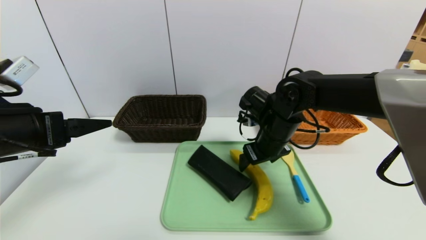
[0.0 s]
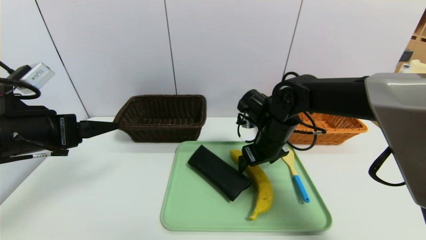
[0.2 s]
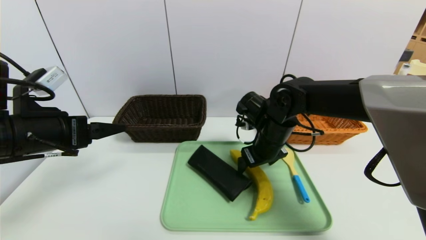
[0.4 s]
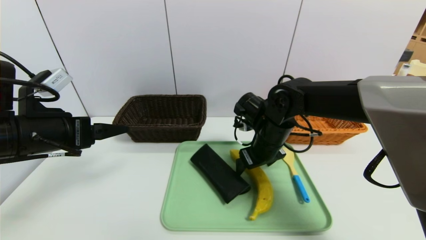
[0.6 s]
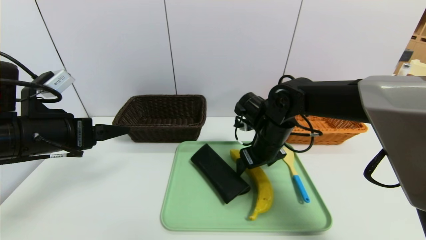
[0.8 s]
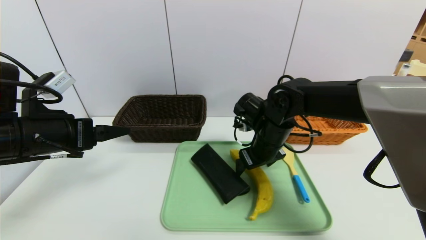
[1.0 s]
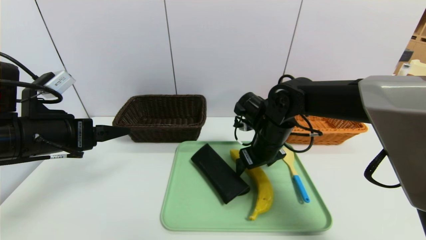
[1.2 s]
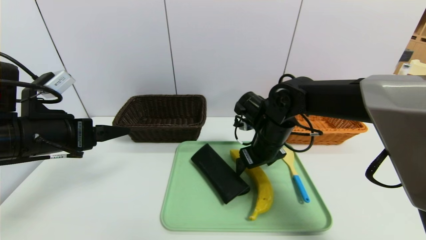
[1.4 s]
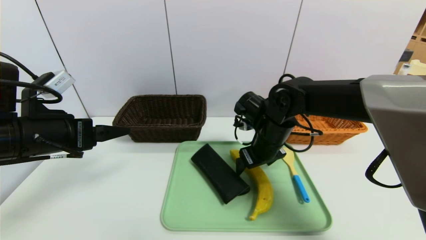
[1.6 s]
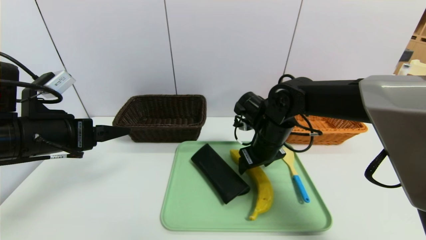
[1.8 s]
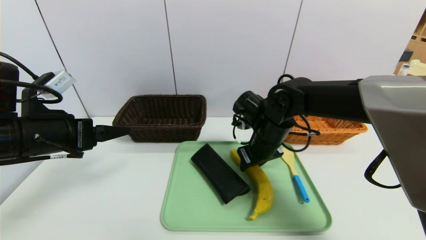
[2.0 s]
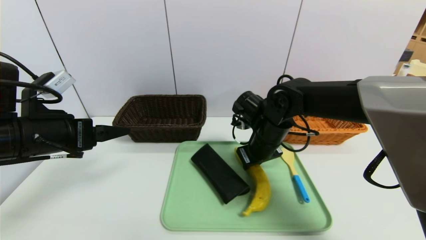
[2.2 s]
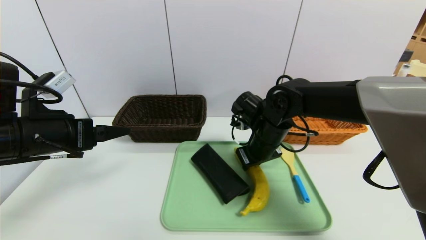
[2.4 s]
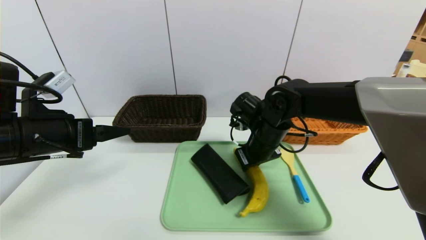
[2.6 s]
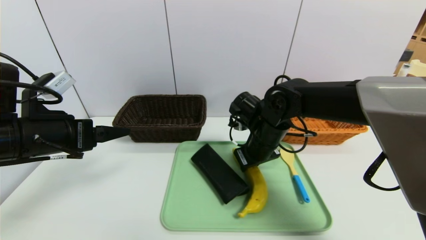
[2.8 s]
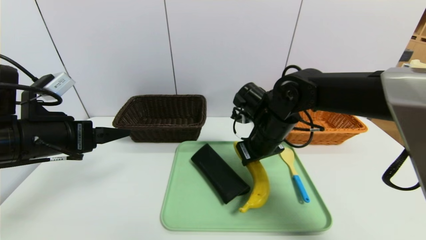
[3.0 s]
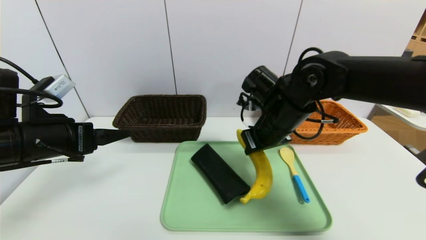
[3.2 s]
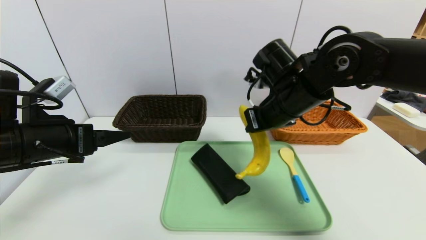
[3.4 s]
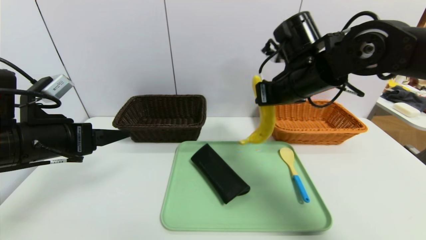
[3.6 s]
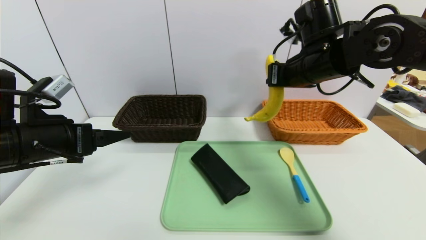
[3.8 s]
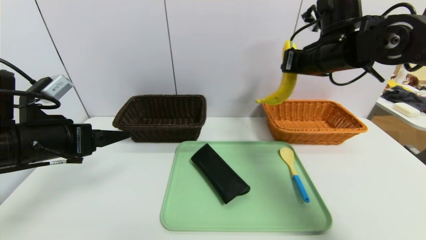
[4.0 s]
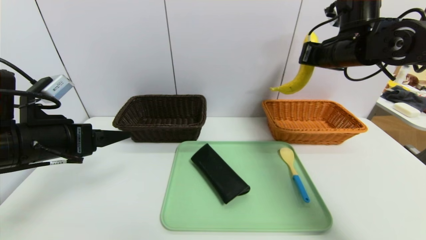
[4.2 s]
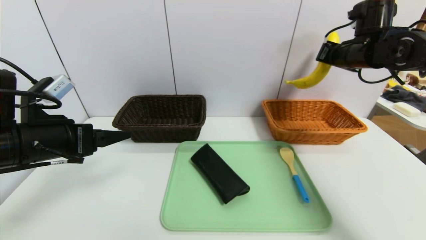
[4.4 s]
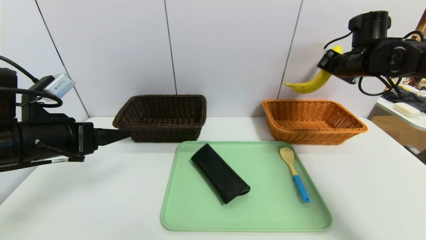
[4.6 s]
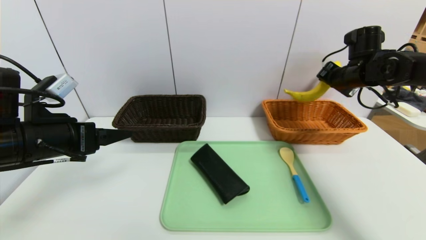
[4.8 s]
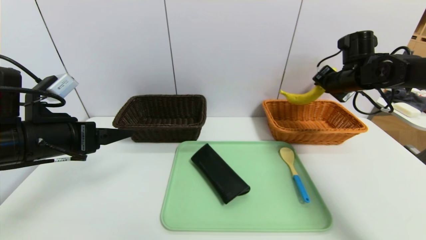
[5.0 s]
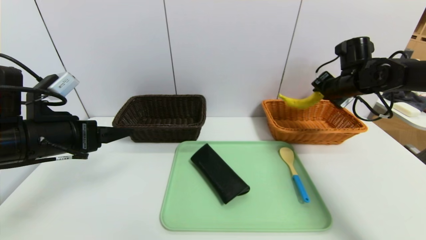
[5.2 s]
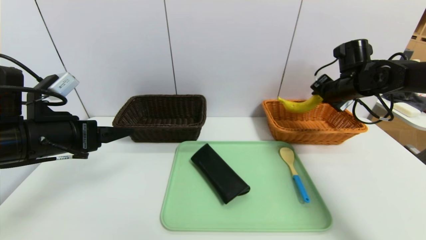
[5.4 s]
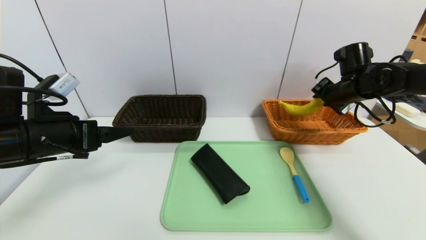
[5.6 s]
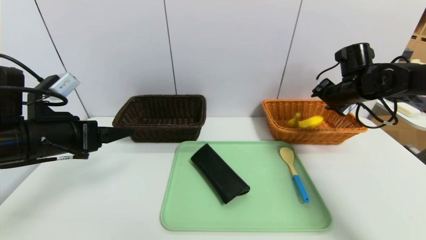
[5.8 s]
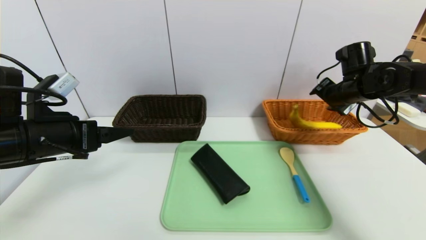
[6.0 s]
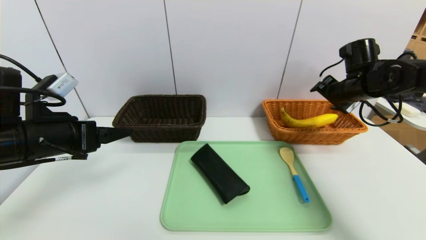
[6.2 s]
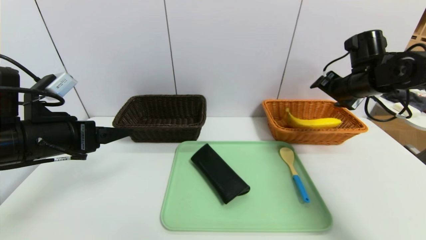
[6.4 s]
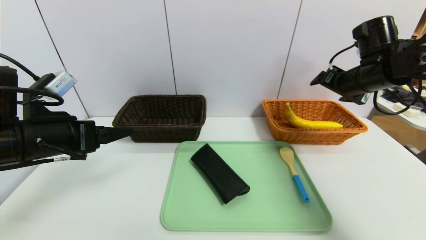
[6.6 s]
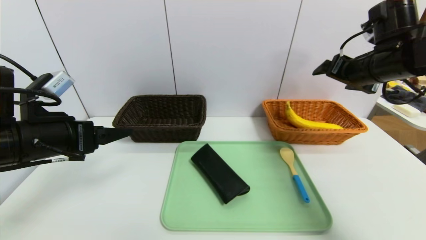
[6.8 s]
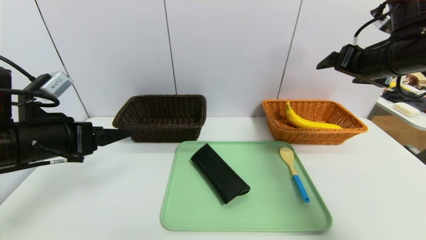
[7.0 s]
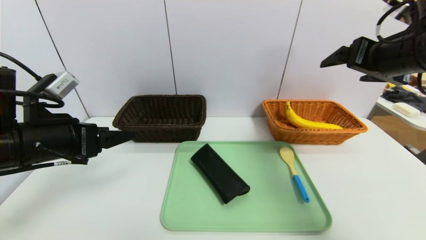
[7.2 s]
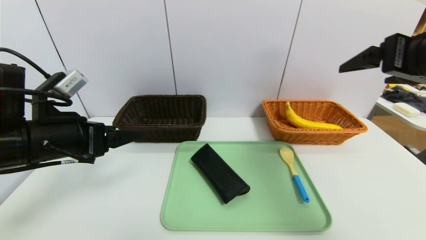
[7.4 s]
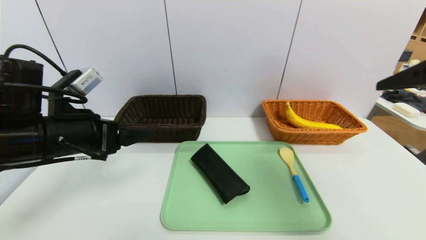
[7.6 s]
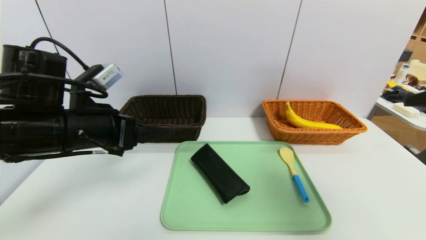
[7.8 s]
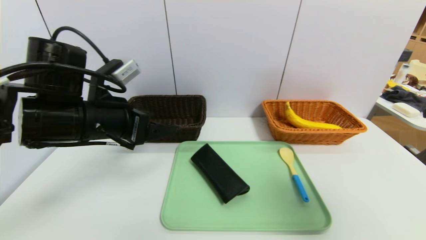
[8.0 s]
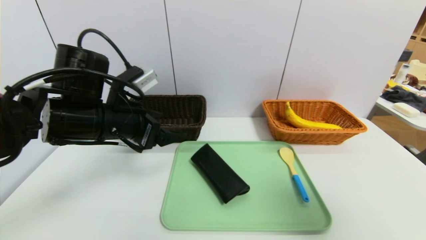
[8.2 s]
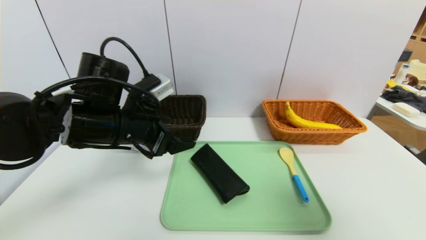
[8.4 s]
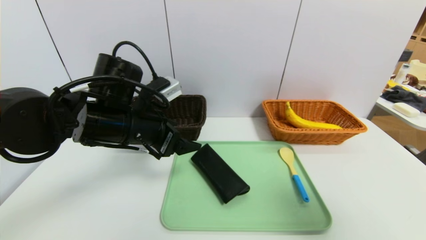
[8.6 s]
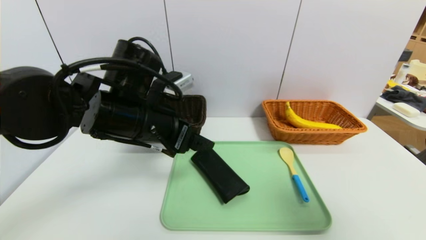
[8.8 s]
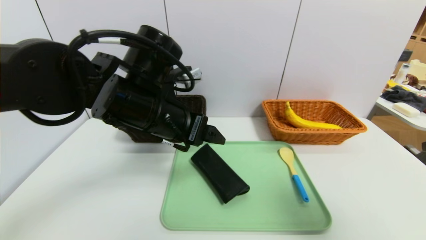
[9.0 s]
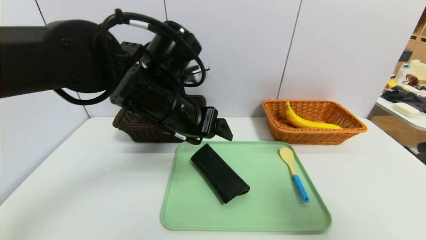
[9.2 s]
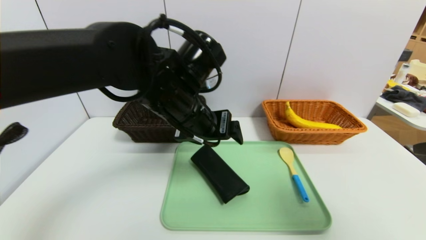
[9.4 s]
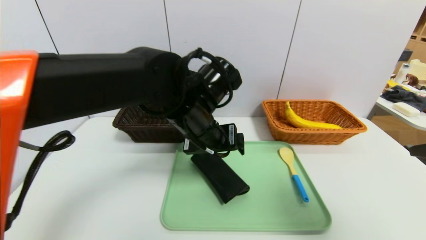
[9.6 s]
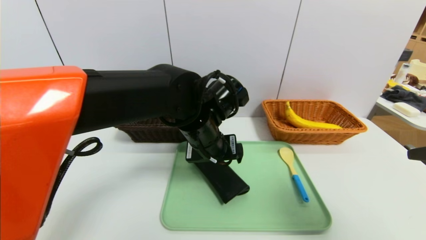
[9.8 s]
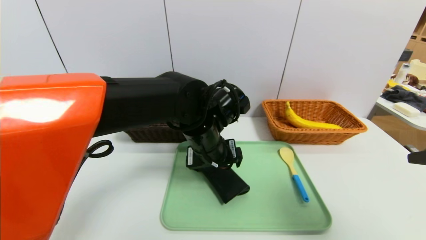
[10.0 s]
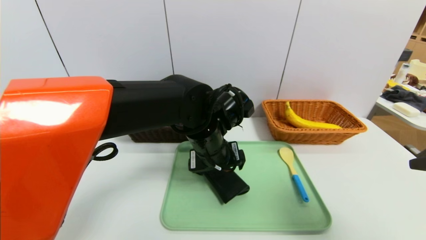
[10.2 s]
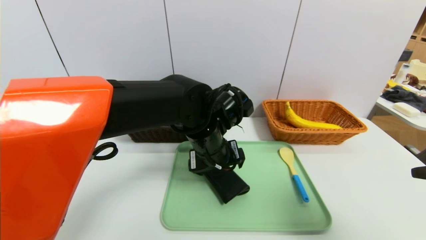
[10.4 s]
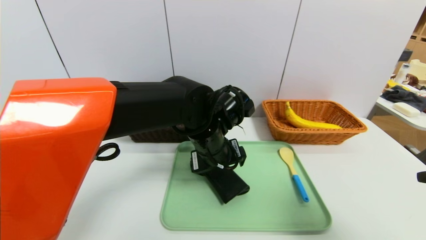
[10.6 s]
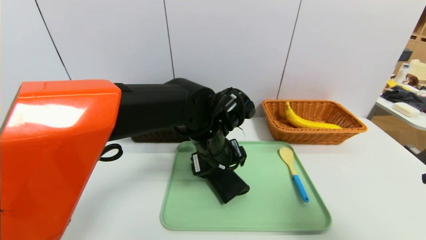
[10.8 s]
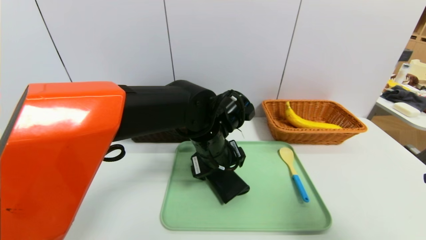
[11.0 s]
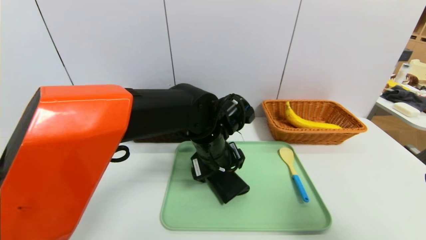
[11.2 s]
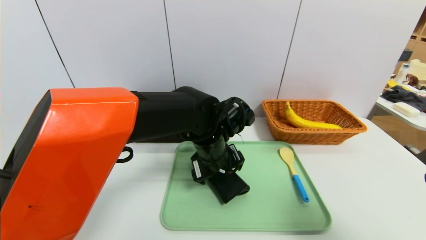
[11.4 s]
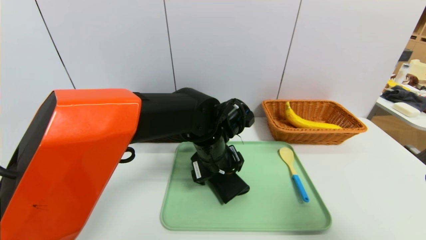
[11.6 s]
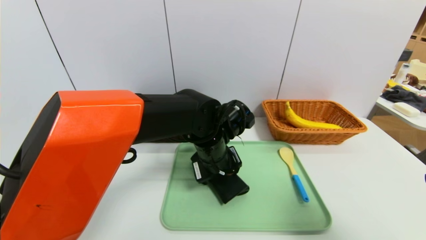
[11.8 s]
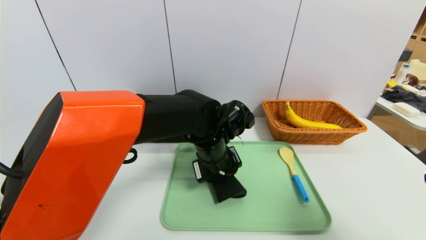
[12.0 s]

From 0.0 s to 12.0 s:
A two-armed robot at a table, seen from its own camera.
Task of the whole recording: place the food in the right basket with the right gripper, and place the non food items in the left basket with the left gripper.
Step, from 0.0 s to 6.2 s: Grasp the banana and put it in the right basket.
From 0.0 s to 1.6 s: The grippers move only a little.
From 1.6 s to 3.0 s: The right gripper closes its fingers.
From 3.0 s to 4.4 s: The right gripper goes roughly 25 cm to the right, upward and forward.
From 4.4 s to 6.0 s: The right gripper heads downward, covering about 10 cm, and opens.
From 6.0 s to 7.6 s: The right gripper is displaced backward and upward by about 30 cm, and opens its fingers.
From 7.6 s to 9.0 s: The right gripper travels backward by about 5 cm; the left gripper shifts about 15 cm to the right.
From 9.0 s to 10.4 s: The left gripper travels to the right and downward by some 10 cm.
From 10.4 s to 12.0 s: The left gripper closes up.

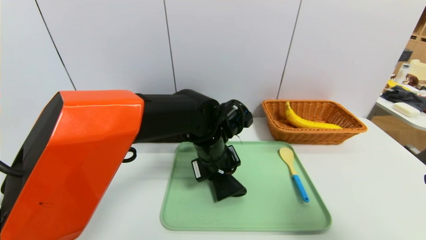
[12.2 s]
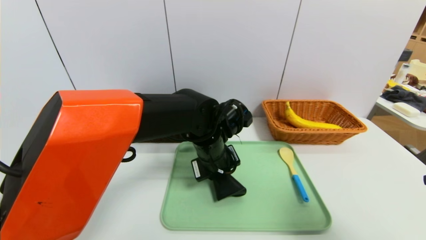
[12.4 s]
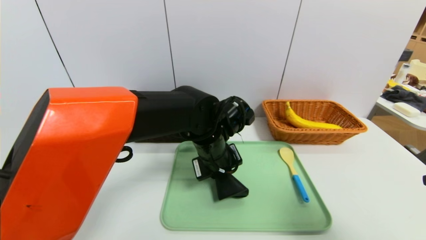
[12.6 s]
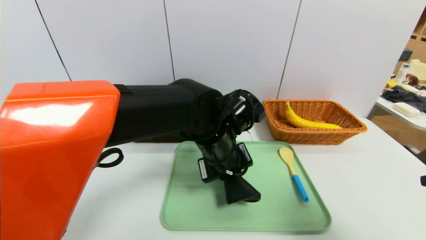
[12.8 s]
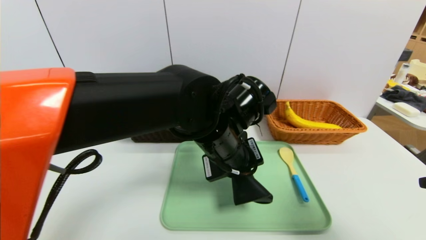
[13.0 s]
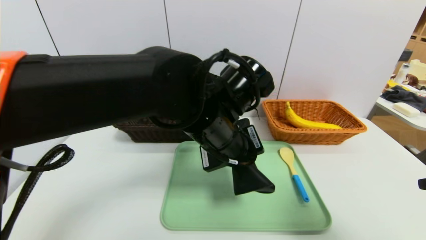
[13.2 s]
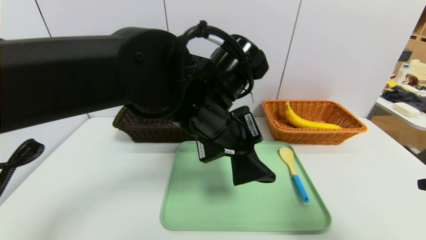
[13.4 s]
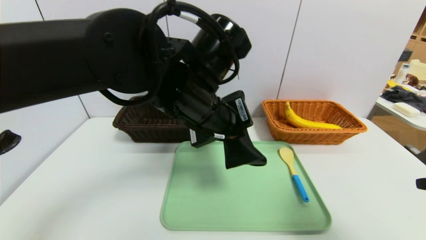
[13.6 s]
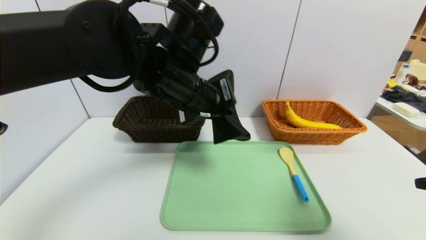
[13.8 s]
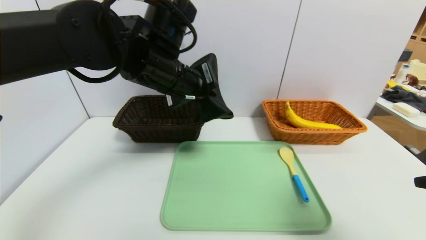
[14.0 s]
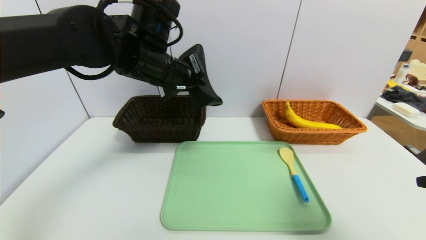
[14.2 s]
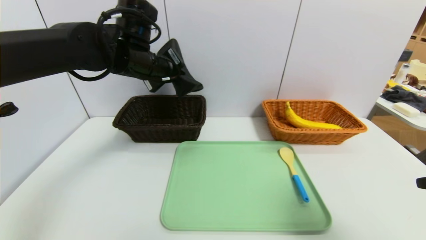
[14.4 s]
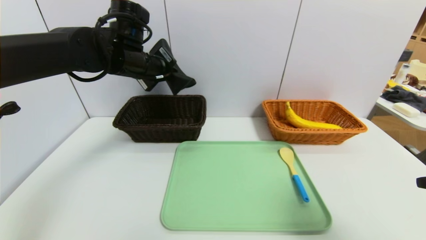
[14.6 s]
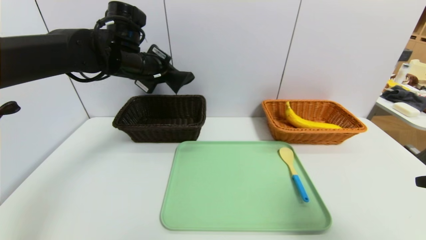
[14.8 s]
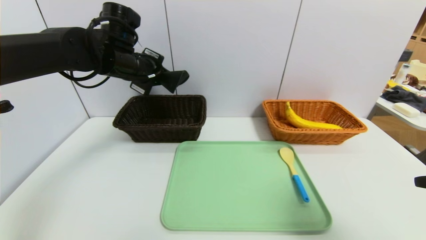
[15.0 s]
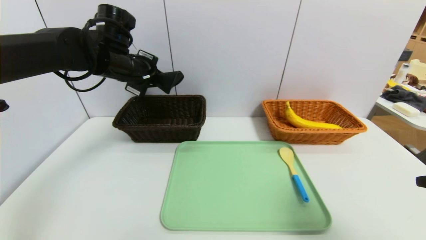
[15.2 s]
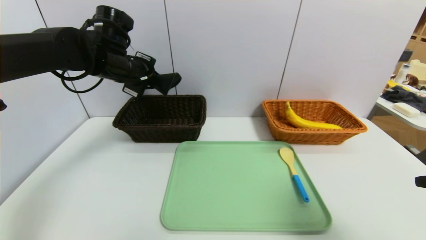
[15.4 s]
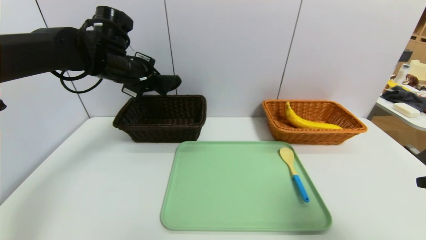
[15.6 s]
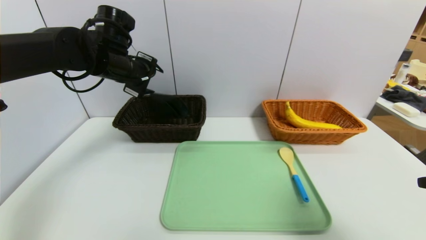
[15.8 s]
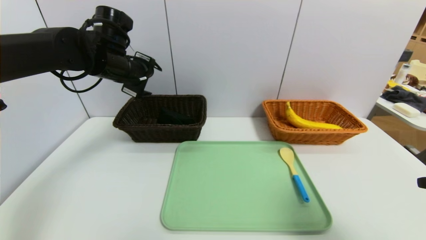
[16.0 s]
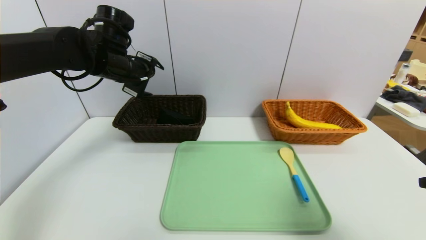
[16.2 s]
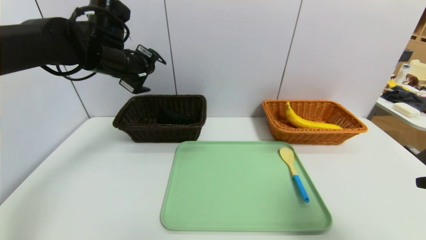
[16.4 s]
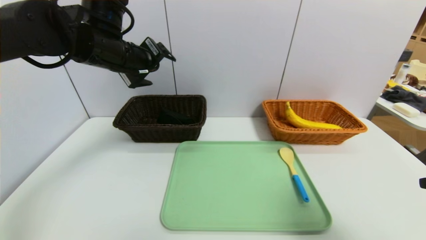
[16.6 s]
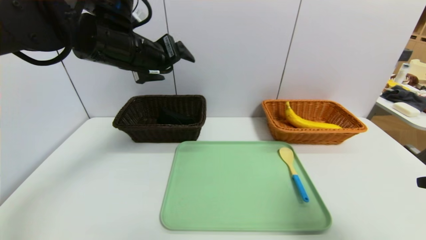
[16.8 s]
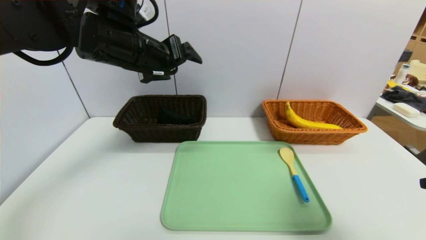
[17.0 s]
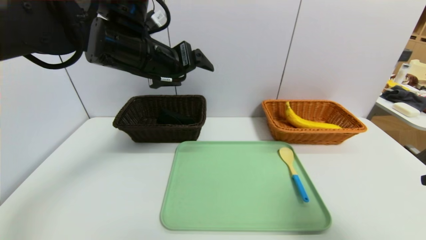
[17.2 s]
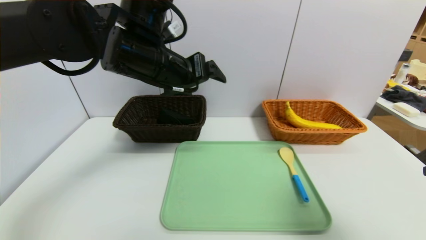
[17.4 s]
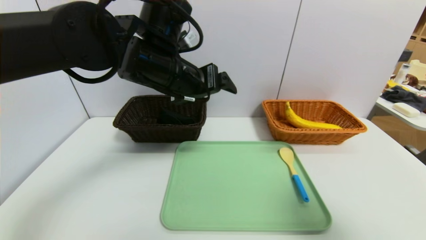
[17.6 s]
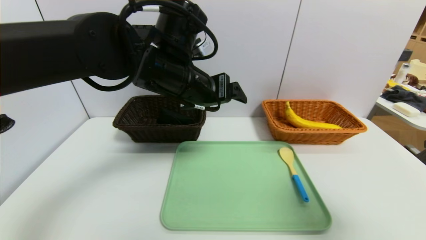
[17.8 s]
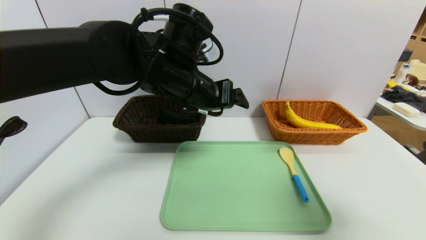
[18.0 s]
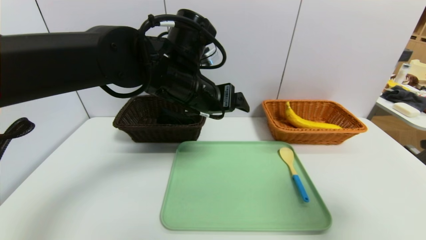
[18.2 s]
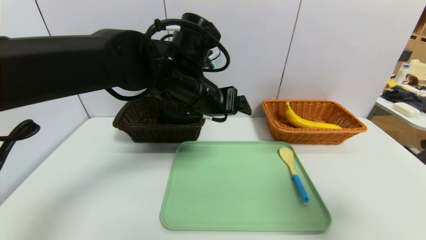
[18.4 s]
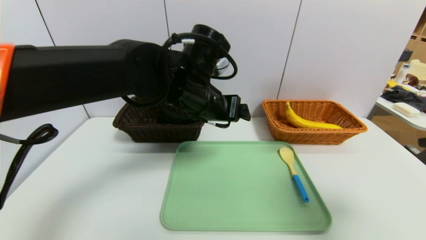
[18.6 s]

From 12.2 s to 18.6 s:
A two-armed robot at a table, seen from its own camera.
Task of the whole recording: place the food in the right basket with the right gripper, and place the non food items in the left basket with the left gripper.
Step, from 12.2 s to 16.2 s: Grasp the glasses case and put it in the left basket.
From 12.2 s to 13.8 s: The left gripper is displaced upward by roughly 15 cm.
From 13.8 s to 15.4 s: The left gripper shifts some 20 cm to the left and forward.
From 15.4 s to 17.0 s: The left gripper shifts about 10 cm backward and to the right, and opens up.
From 17.0 s to 18.6 s: The left gripper goes about 15 cm to the right and downward.
